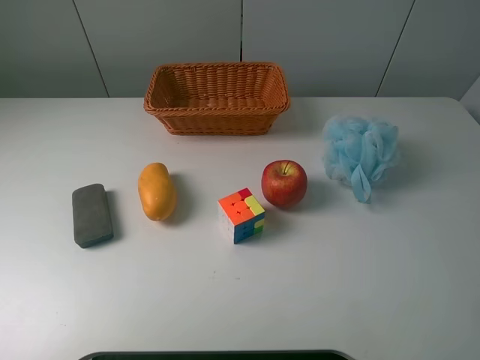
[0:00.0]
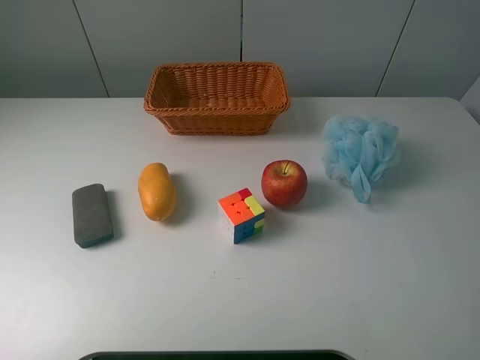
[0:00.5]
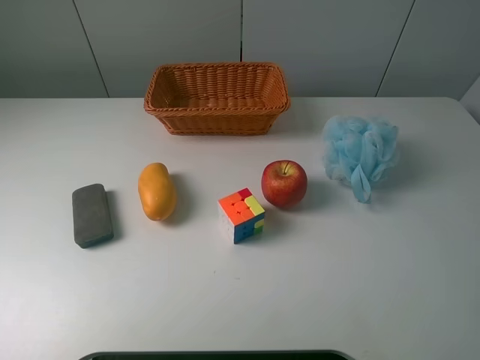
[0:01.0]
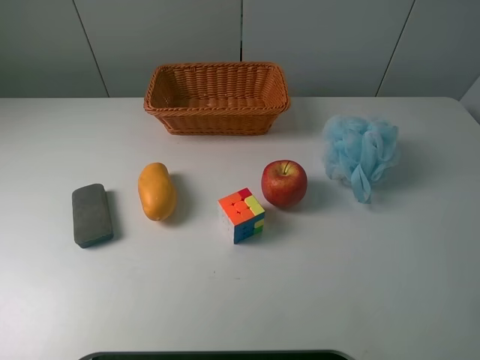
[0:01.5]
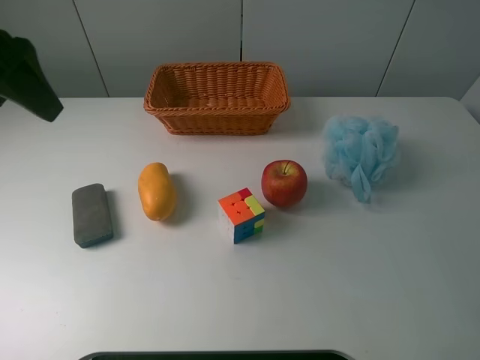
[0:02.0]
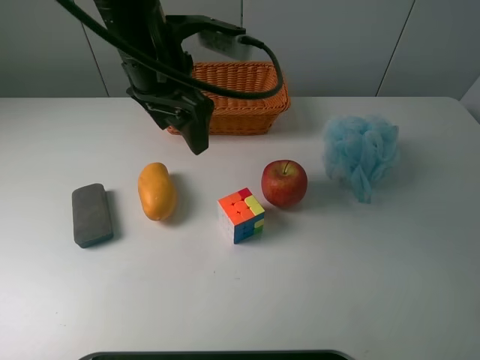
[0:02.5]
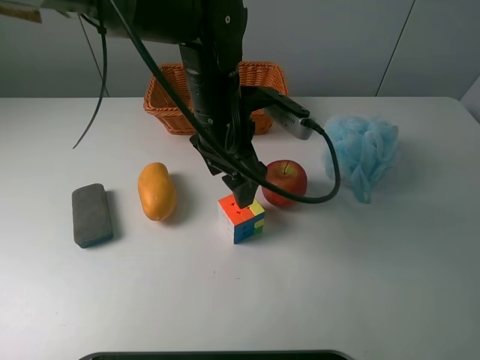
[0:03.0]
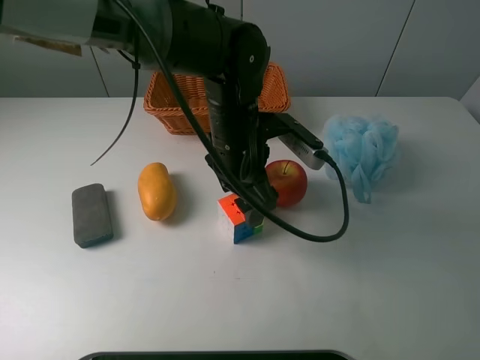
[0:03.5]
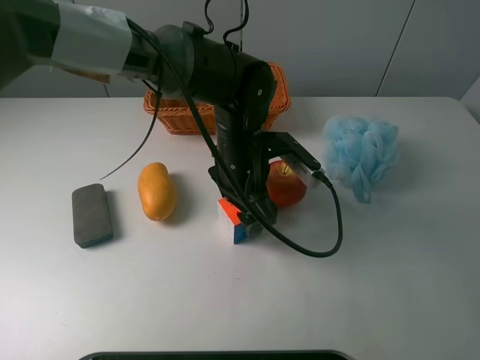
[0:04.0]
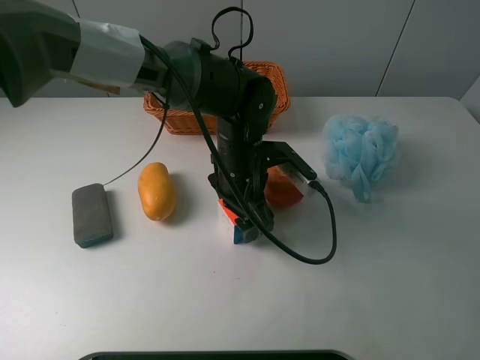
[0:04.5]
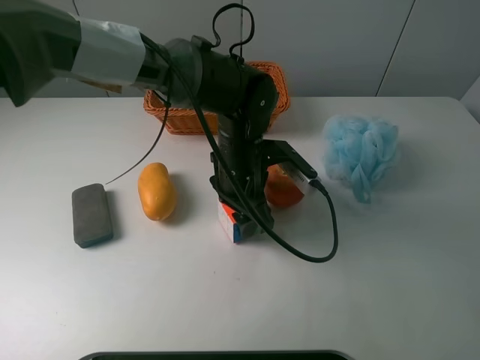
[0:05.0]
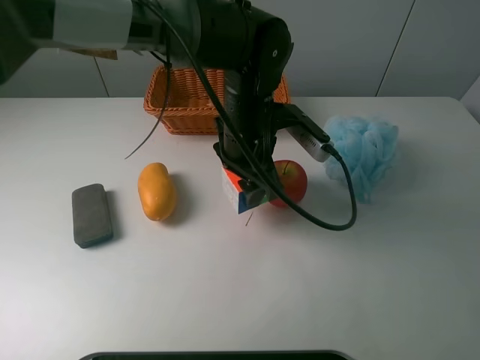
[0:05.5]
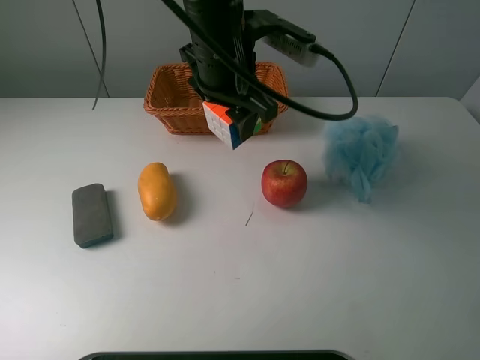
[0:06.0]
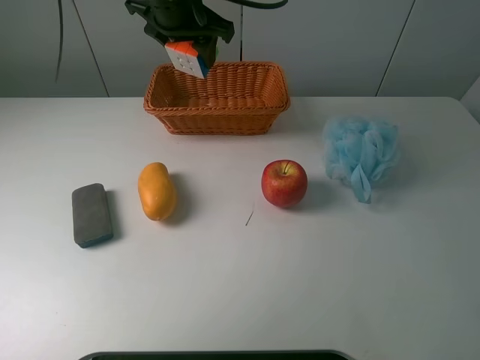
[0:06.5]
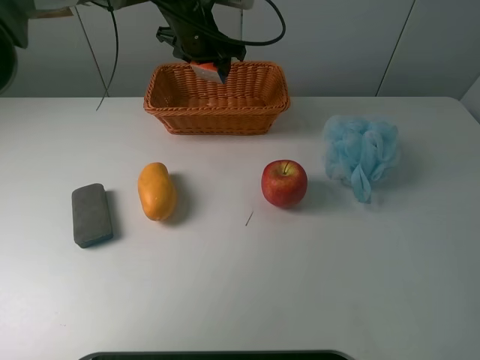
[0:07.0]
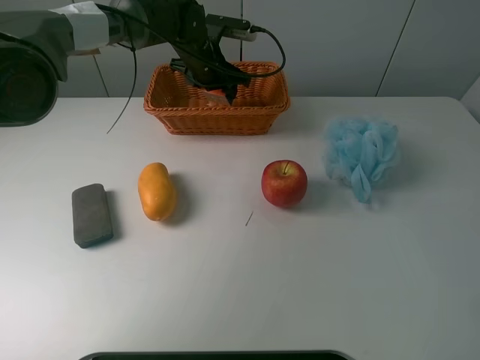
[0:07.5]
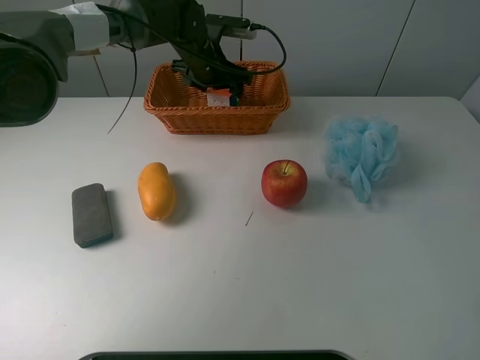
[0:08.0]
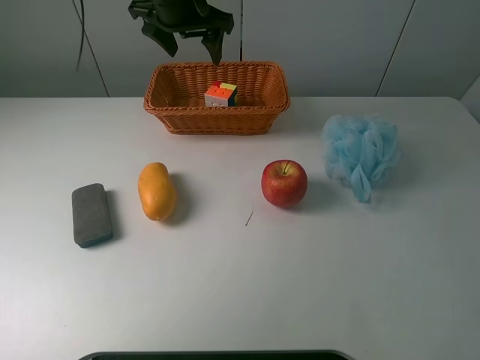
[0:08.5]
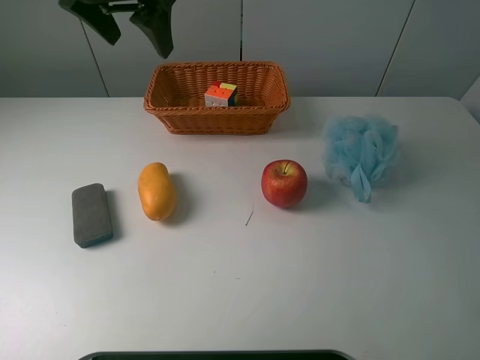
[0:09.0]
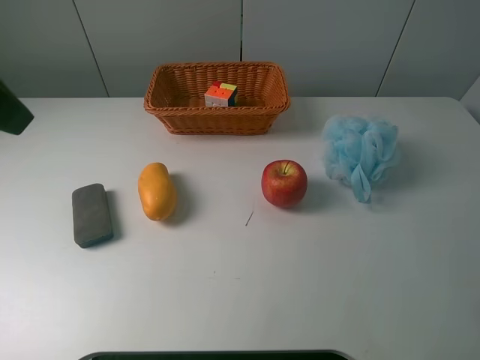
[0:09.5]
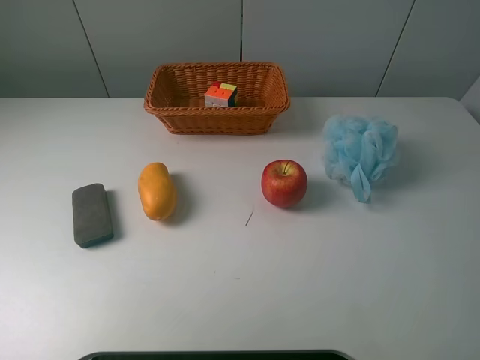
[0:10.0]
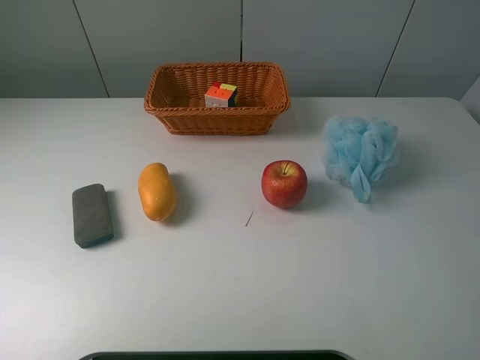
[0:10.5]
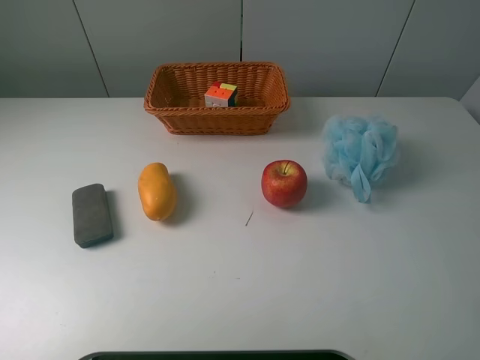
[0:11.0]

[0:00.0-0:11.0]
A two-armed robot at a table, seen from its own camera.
Task of the whole recording: use a picker to grab the item closest to the apple and place it in the basket.
Step, 0:00.0 to 0:04.5: Grasp the Rubik's Cube with the left gripper.
Step, 0:05.0 to 0:08.0: Place the Rubik's Cube into the basket with the left gripper.
0:00.0 to 0:02.0: The left gripper shifts approximately 25 cm forward.
0:02.0 to 0:03.5: The left gripper shifts approximately 30 cm to the right and downward.
0:03.5 to 0:05.5: The left gripper closes up.
0:05.5 to 0:07.5: The left gripper goes about 20 cm forward.
0:07.5 to 0:09.0: The left gripper is displaced upward, backward and to the left by about 25 cm, and opens up.
0:09.0 to 0:11.0: The left gripper travels backward and to the left by approximately 40 cm.
